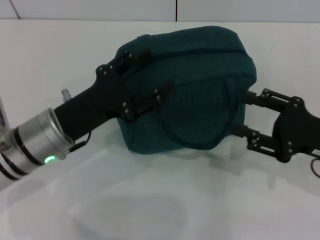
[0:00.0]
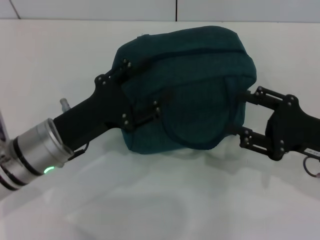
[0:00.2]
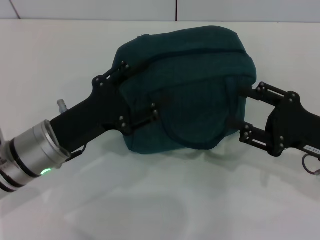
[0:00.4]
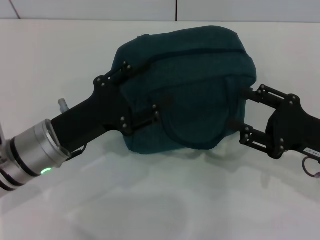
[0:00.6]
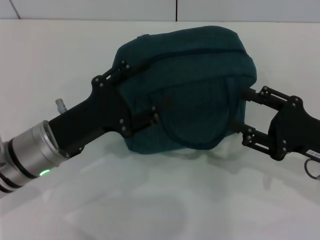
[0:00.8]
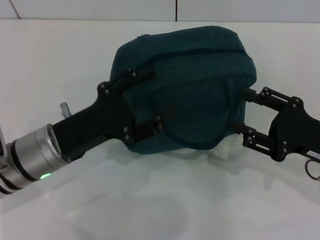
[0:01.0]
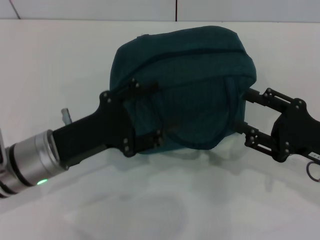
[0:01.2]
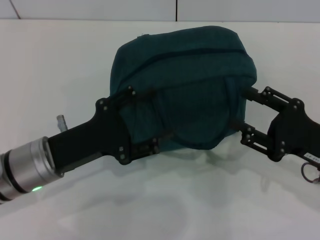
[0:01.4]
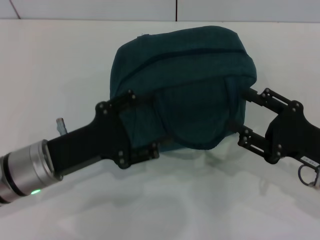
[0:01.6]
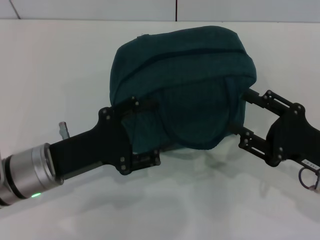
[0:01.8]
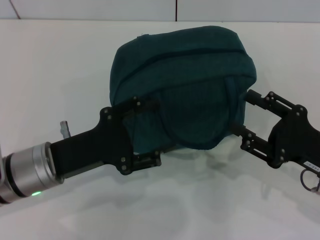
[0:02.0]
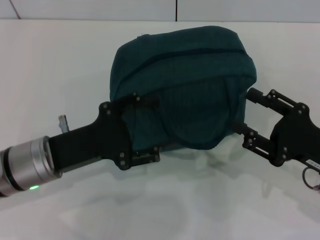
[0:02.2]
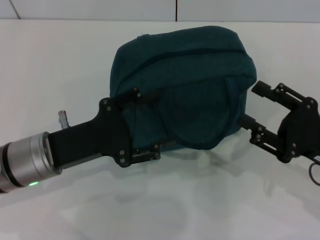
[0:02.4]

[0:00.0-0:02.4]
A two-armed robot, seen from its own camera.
0:00.0 to 0:02.4: The grippers make only small movements.
